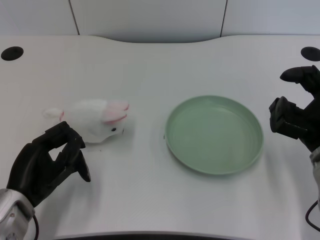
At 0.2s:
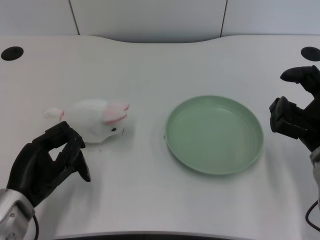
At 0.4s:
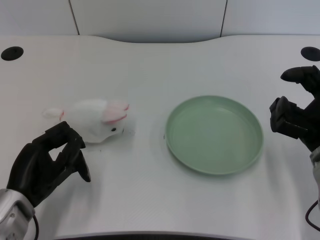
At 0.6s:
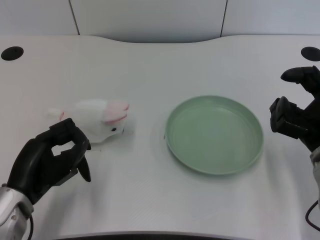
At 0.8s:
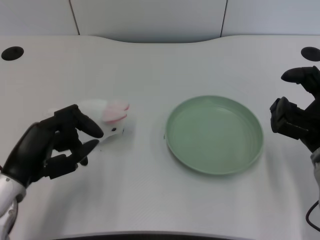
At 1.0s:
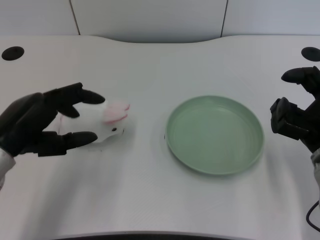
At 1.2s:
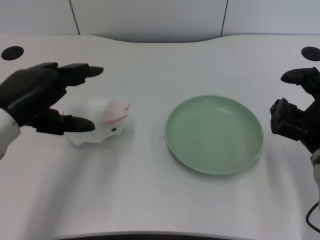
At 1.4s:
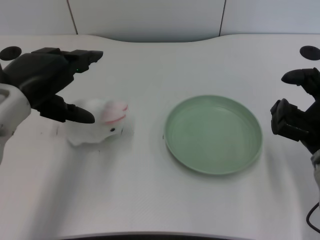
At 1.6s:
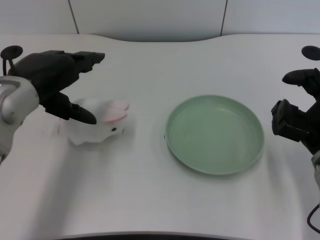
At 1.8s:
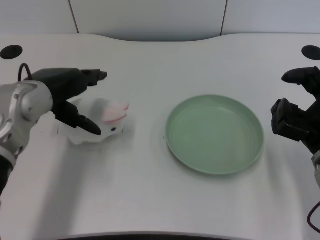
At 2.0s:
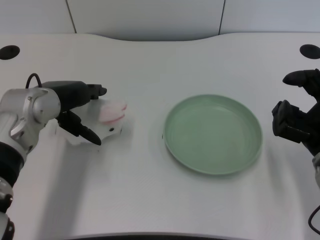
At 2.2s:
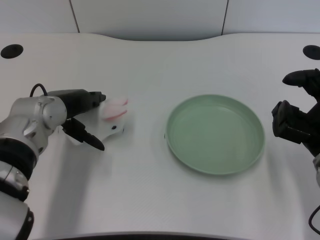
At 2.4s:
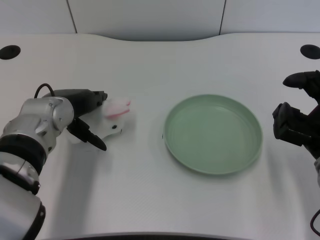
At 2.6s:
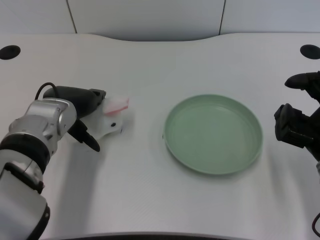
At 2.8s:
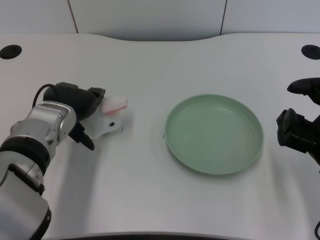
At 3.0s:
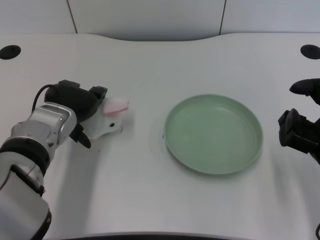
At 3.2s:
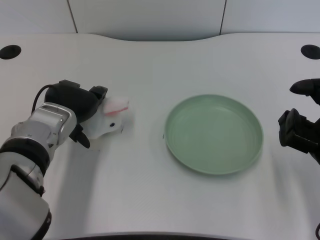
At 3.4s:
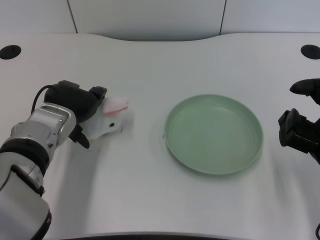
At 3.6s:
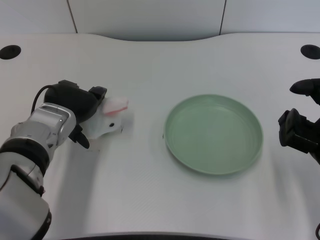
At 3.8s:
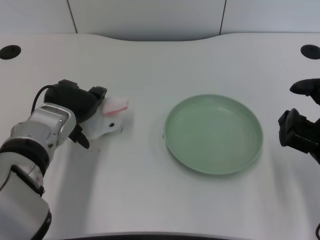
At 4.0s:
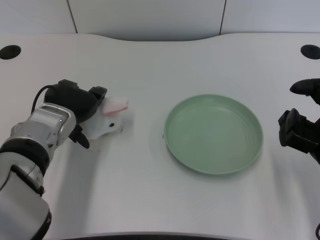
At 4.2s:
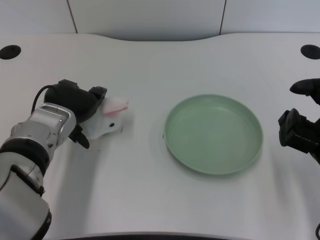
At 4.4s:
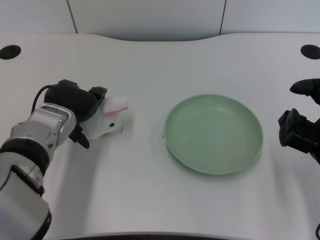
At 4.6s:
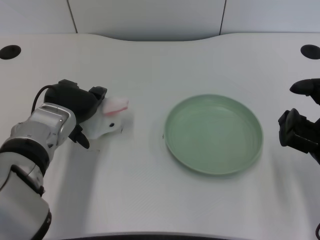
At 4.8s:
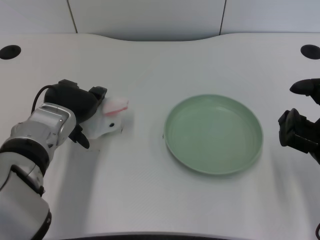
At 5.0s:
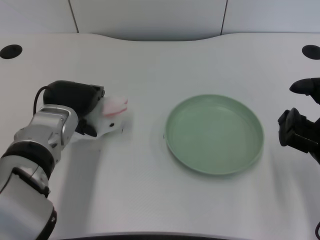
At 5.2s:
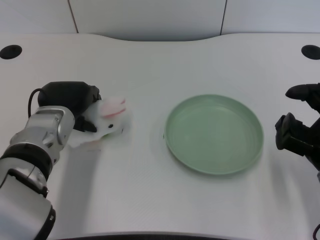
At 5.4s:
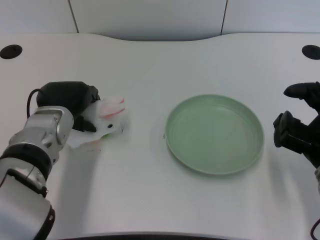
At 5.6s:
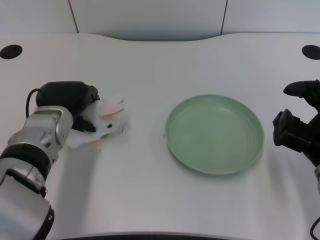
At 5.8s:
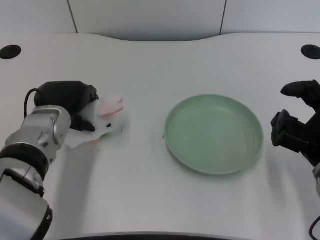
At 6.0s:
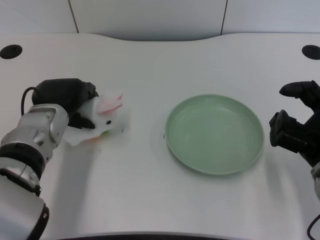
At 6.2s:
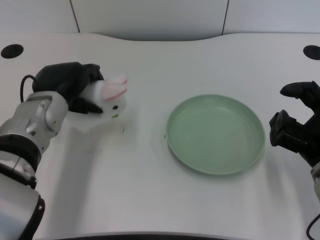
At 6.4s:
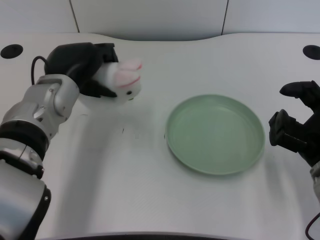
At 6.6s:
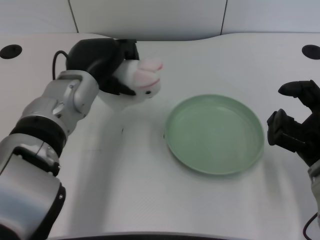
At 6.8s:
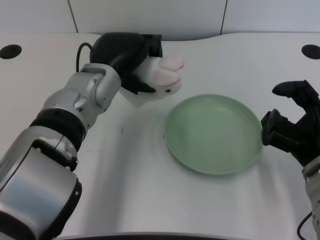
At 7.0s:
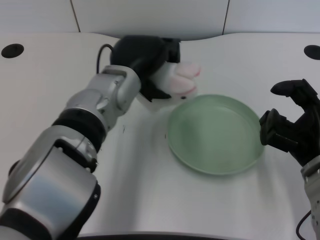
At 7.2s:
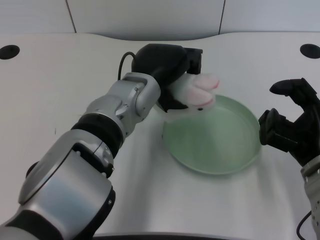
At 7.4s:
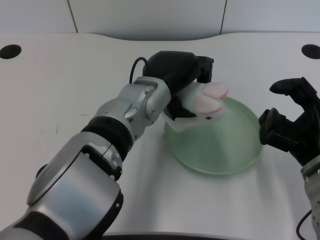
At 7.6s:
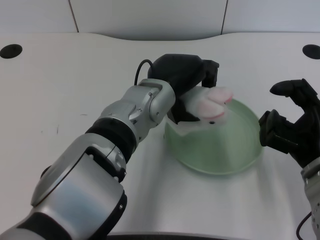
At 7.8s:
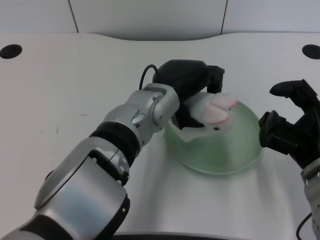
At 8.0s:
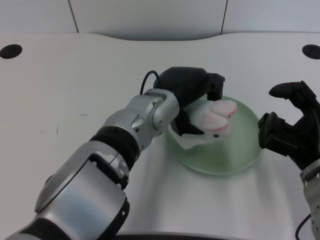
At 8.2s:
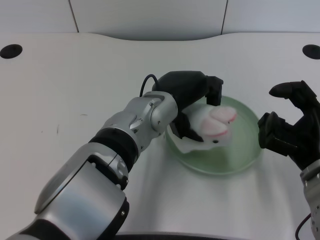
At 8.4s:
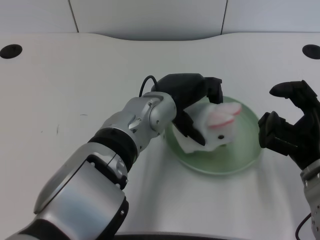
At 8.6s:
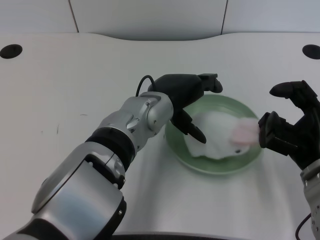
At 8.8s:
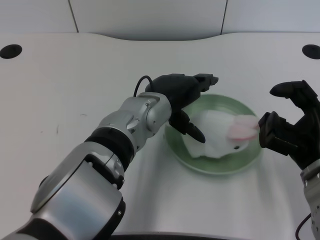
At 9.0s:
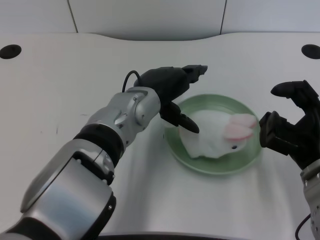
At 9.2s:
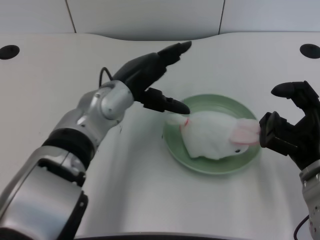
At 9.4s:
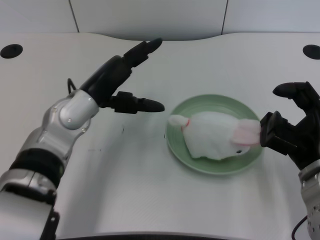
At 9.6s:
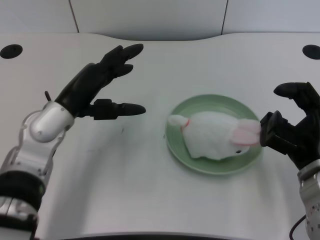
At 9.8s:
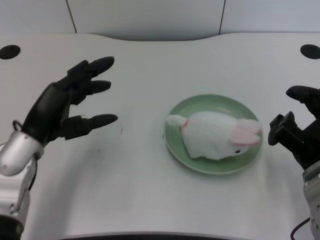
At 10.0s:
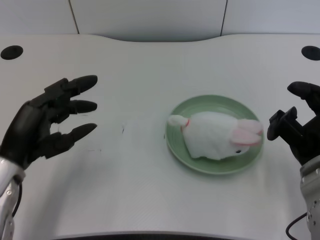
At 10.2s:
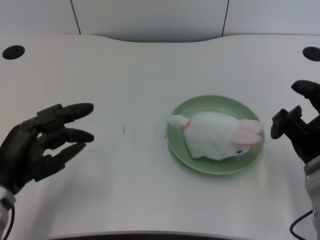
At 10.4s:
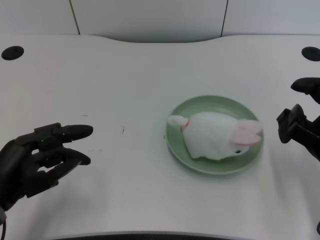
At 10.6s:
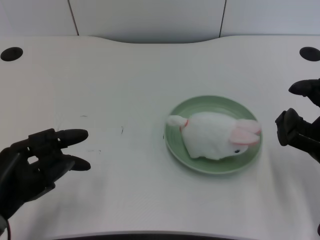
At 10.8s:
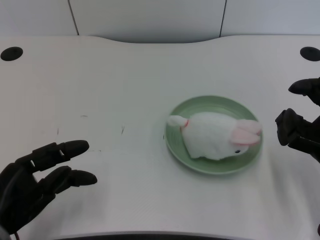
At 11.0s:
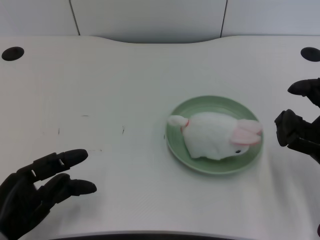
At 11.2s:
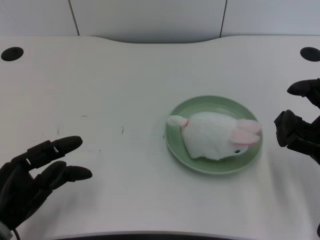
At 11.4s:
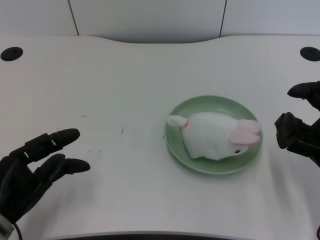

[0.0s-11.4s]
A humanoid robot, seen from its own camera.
Task of the whole recording: pick up the rabbit doll from the table and place it on the plate.
Step, 0.8s to 6.0s: Grasp the rabbit doll with the left gripper.
Step, 6.2s to 9.0s: Place the rabbit doll into the plate with the left gripper.
1.4s to 2.8s: The left hand travels downward, forward and to the right by roughly 10 cm.
2.8s to 4.2s: The hands stay close to where they were, moving slightly.
5.6s to 7.2s: The left hand travels to the right and upward by approximately 15 cm.
8.6s to 10.0s: The left hand heads to the left, covering approximately 20 cm.
10.0s to 11.4s: The left hand ends up approximately 5 cm from where it was.

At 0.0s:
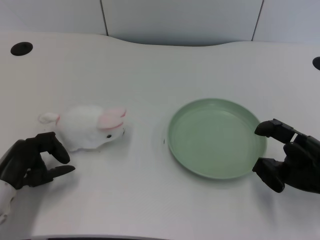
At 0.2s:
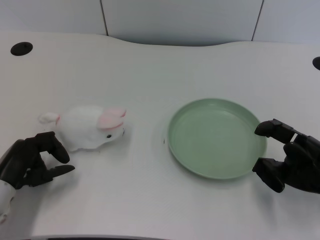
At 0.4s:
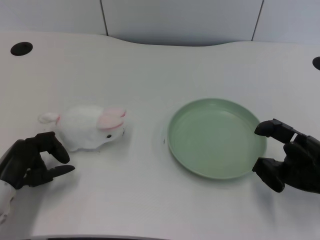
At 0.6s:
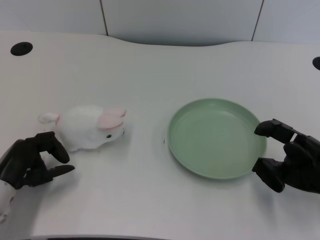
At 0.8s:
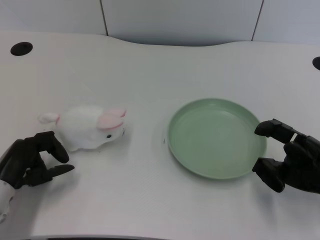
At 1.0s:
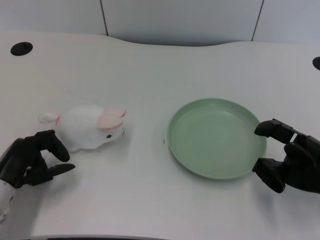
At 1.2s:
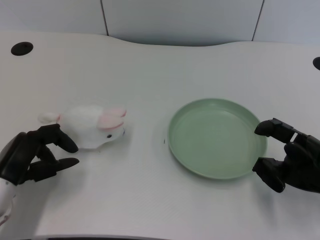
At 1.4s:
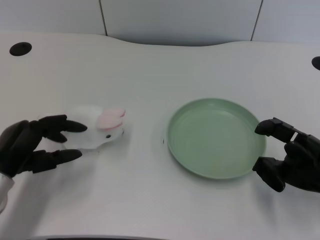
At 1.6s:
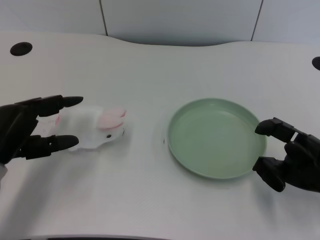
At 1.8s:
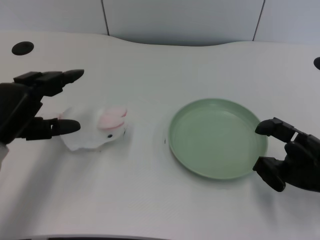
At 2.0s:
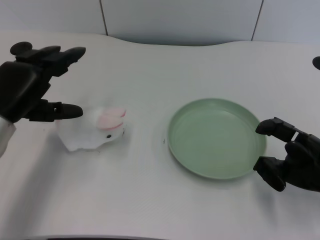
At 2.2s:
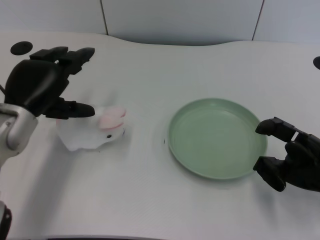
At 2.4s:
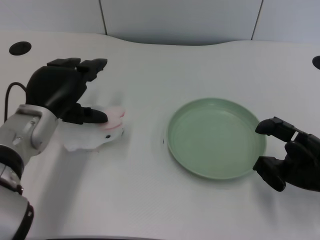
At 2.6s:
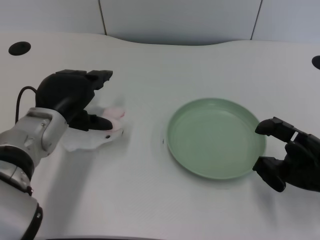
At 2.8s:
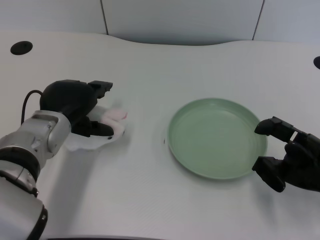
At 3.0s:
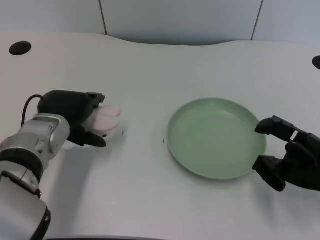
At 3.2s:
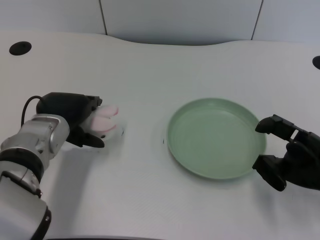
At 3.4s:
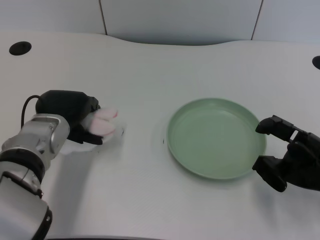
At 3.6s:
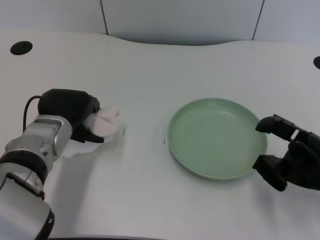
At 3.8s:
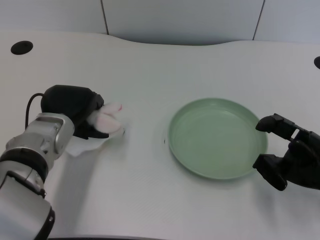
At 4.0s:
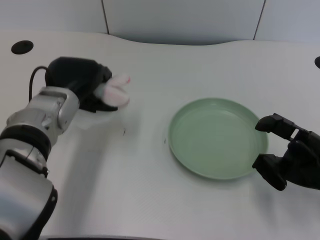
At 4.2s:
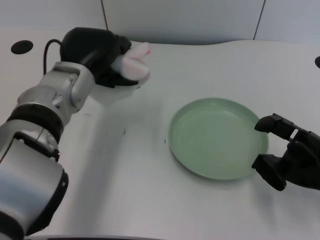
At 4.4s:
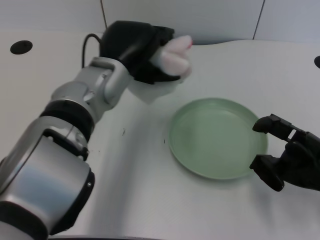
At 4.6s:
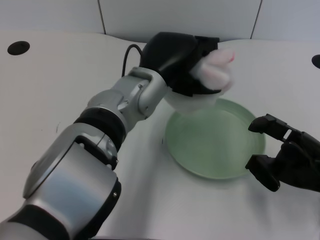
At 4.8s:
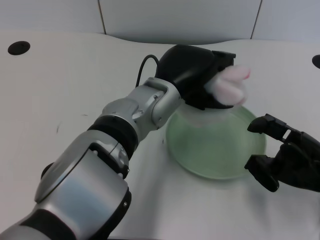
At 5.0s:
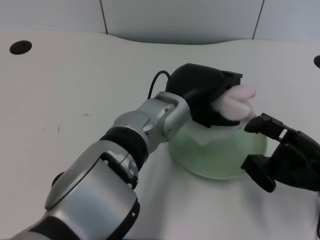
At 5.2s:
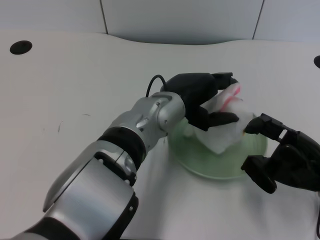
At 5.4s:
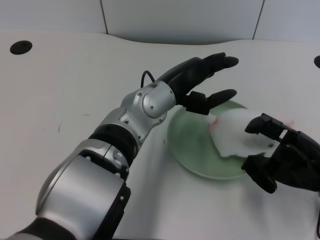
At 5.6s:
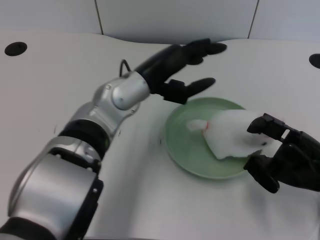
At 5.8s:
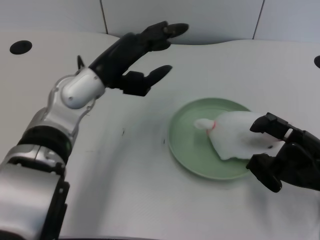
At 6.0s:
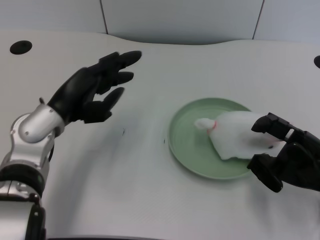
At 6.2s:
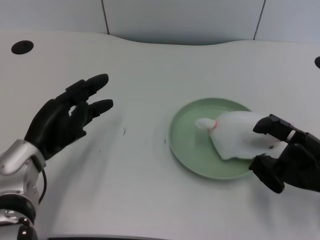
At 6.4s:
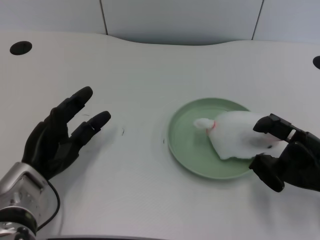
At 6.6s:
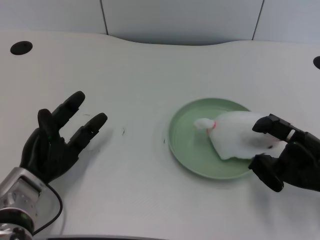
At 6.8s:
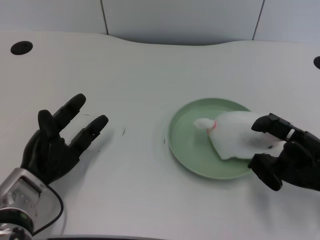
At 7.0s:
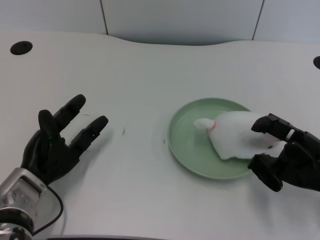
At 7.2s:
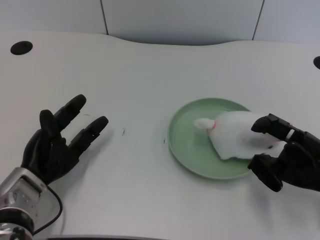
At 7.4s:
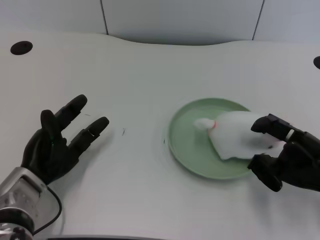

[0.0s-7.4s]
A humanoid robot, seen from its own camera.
Task of the whole recording: pick up the rabbit doll from the table and place it on the plate.
Step, 1.4s to 3.8s: Grasp the rabbit doll with the left gripper.
Step, 4.2s to 5.2s: Place the rabbit doll into the plate with the left gripper.
1.4s to 3.0s: The left hand is displaced to the right and forward by approximately 10 cm.
3.0s to 4.4s: The left hand goes some 10 cm to the right and upward.
4.4s to 6.0s: The left hand shifts roughly 10 cm to the left and downward.
6.0s to 7.4s: The left hand moves downward, some 10 cm.

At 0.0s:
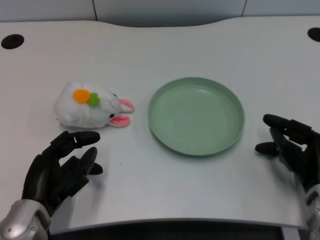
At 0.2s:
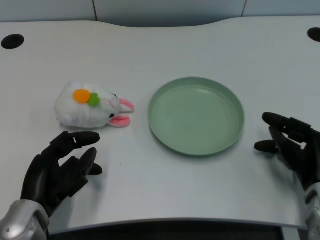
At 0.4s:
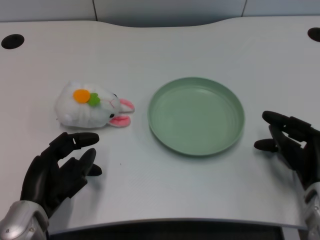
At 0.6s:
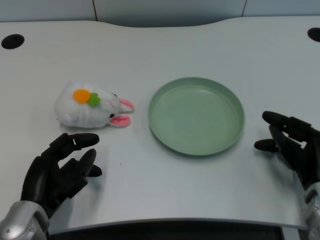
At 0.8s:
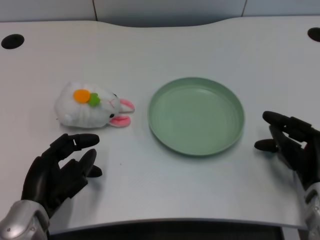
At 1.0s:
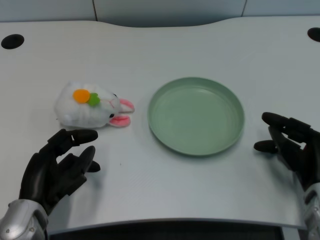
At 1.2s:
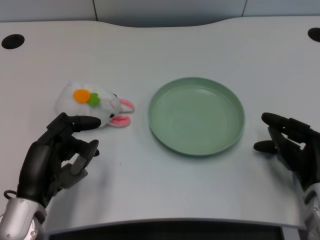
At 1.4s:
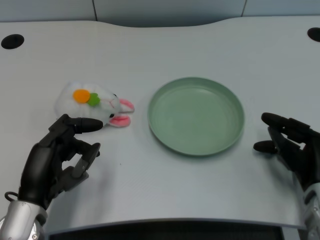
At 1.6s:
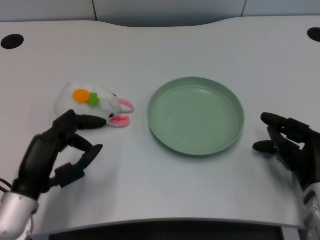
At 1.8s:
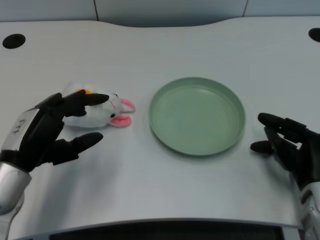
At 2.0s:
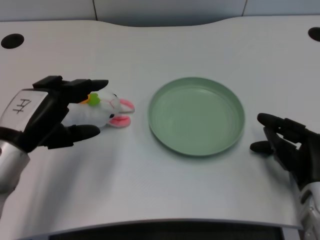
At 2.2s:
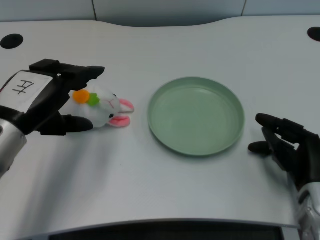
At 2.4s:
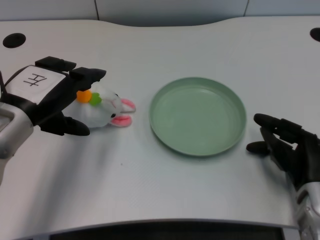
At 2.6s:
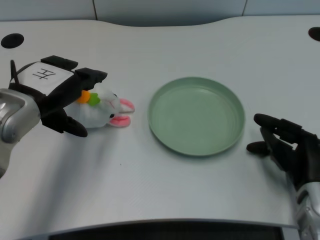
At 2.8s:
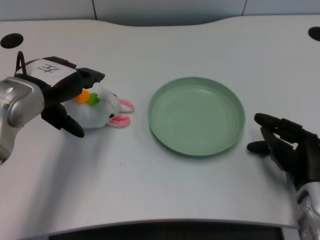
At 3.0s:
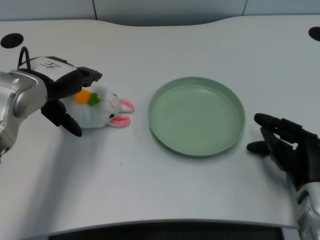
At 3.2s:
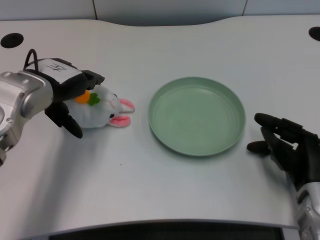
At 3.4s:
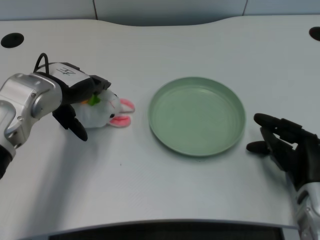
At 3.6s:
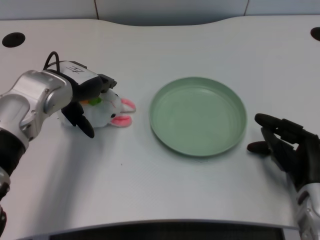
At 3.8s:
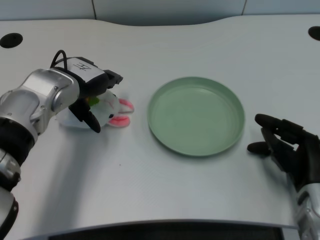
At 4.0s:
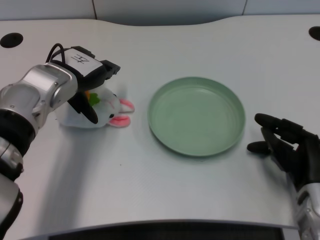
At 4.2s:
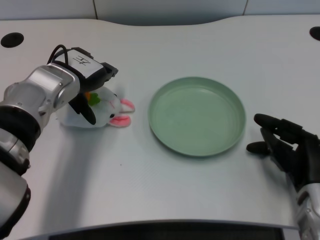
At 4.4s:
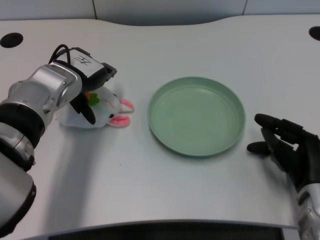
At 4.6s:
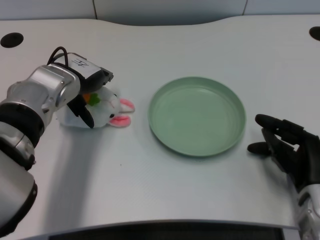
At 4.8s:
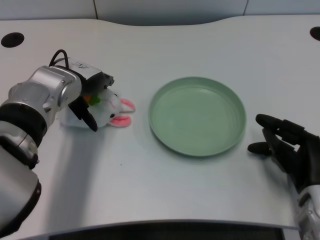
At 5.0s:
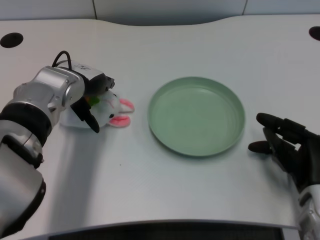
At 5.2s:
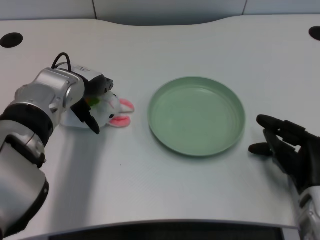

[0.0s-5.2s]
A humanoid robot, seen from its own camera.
Task of the whole recording: pick up the rabbit doll from the table and place it on the plate.
1.8s to 3.4s: The left hand goes some 10 cm forward.
3.4s to 5.2s: The hands make only small movements.
